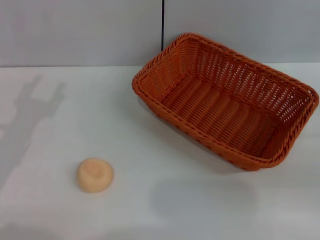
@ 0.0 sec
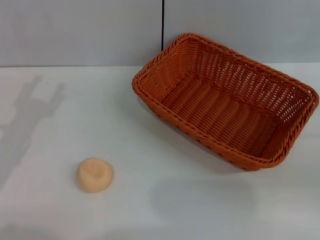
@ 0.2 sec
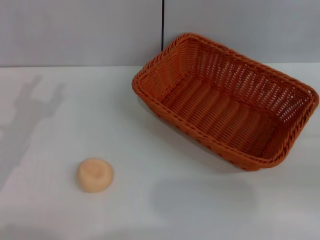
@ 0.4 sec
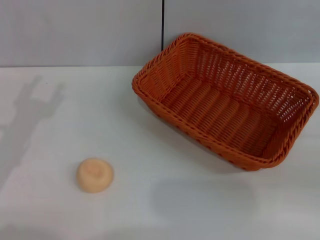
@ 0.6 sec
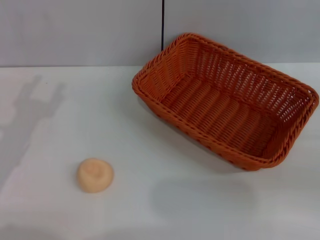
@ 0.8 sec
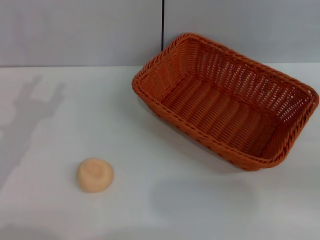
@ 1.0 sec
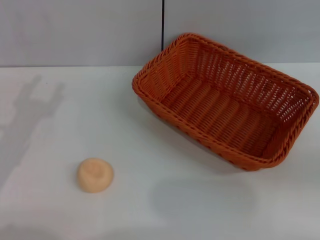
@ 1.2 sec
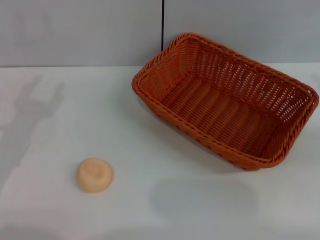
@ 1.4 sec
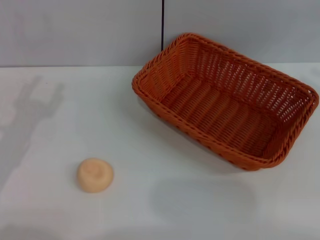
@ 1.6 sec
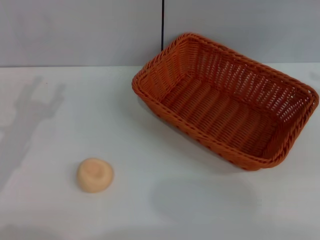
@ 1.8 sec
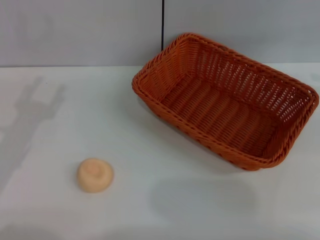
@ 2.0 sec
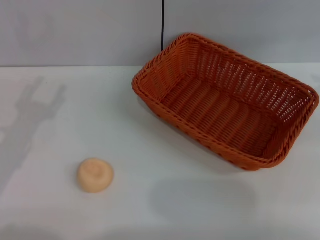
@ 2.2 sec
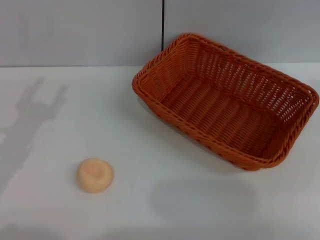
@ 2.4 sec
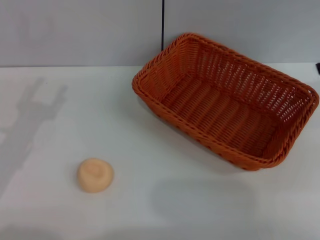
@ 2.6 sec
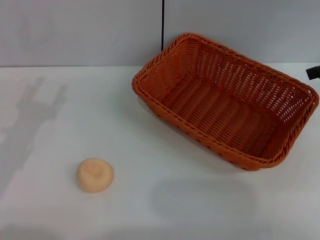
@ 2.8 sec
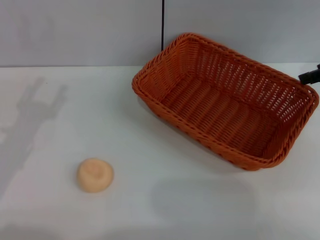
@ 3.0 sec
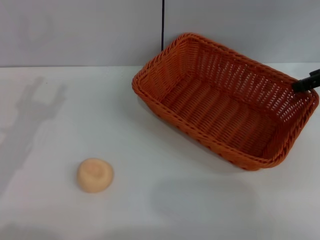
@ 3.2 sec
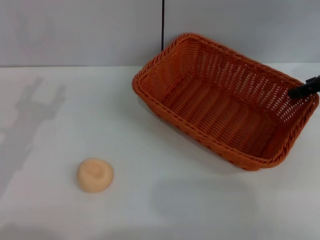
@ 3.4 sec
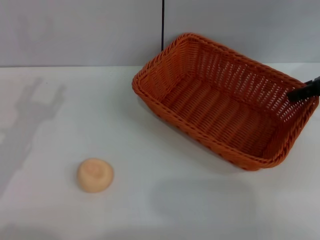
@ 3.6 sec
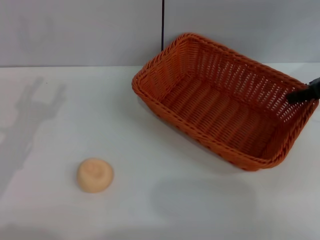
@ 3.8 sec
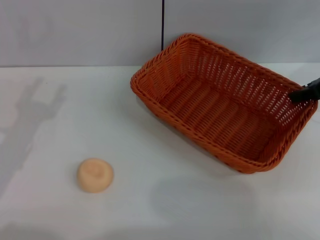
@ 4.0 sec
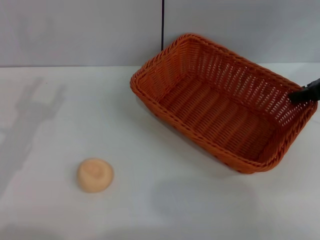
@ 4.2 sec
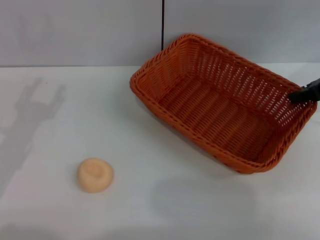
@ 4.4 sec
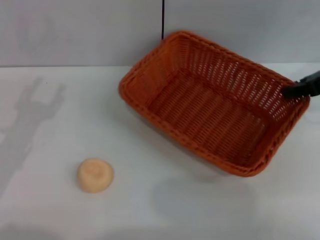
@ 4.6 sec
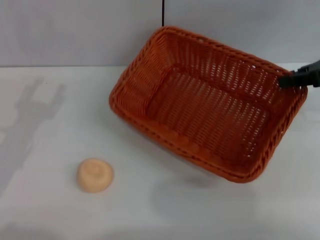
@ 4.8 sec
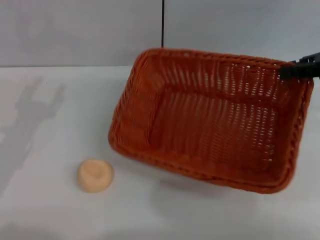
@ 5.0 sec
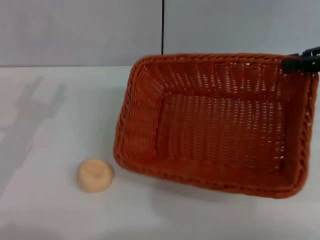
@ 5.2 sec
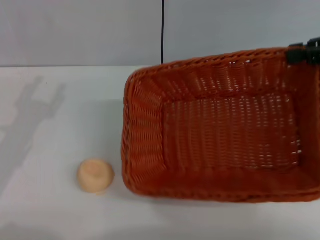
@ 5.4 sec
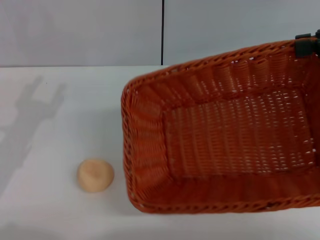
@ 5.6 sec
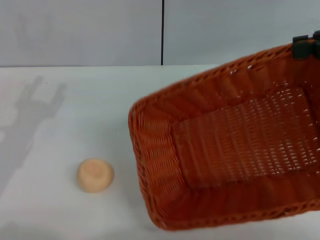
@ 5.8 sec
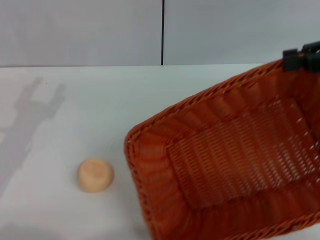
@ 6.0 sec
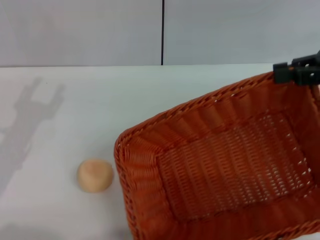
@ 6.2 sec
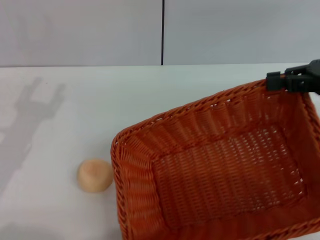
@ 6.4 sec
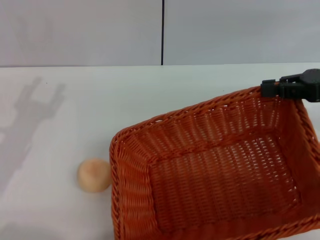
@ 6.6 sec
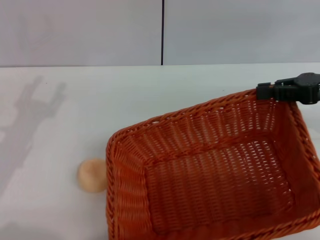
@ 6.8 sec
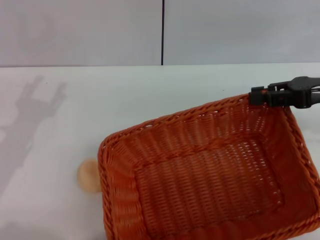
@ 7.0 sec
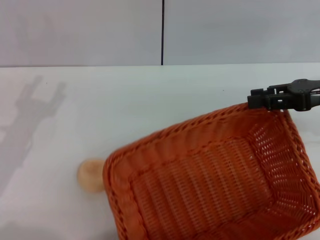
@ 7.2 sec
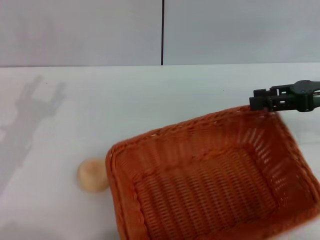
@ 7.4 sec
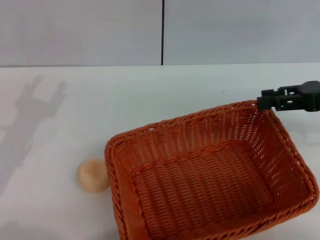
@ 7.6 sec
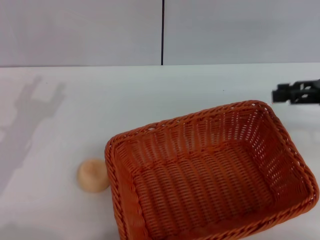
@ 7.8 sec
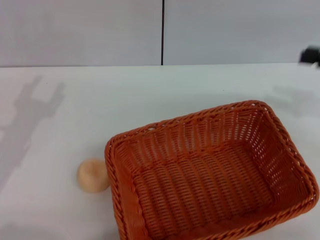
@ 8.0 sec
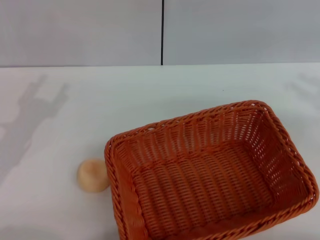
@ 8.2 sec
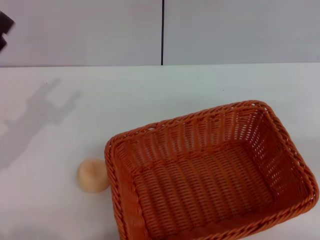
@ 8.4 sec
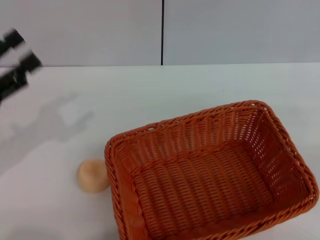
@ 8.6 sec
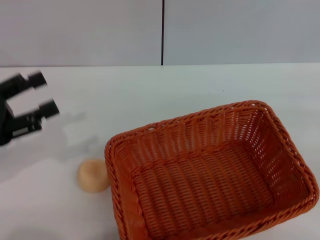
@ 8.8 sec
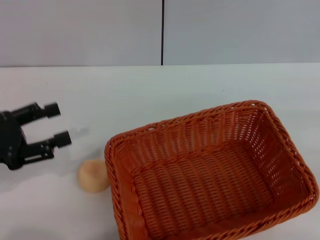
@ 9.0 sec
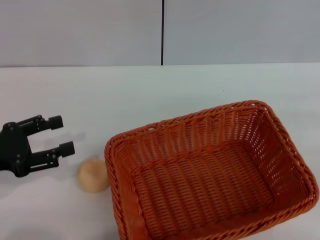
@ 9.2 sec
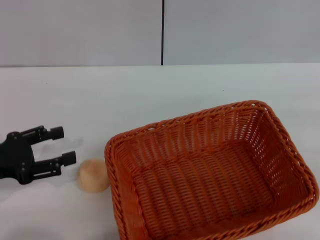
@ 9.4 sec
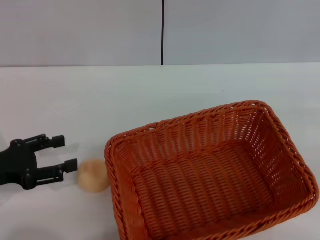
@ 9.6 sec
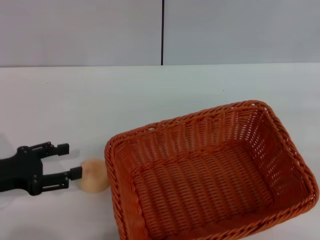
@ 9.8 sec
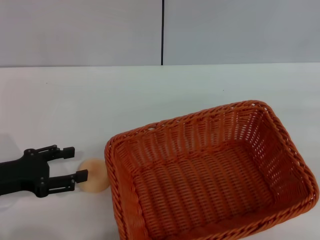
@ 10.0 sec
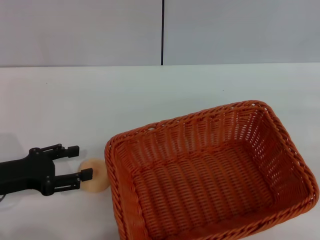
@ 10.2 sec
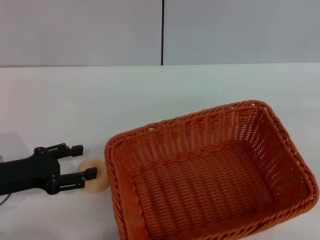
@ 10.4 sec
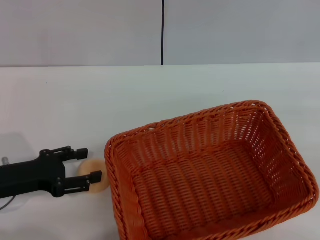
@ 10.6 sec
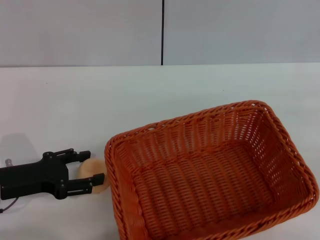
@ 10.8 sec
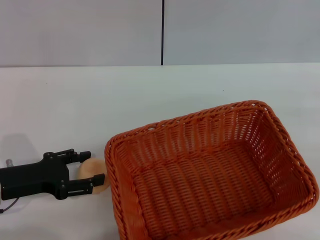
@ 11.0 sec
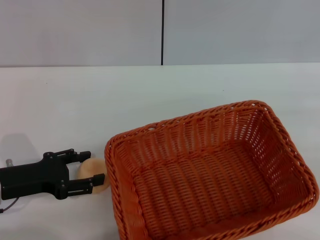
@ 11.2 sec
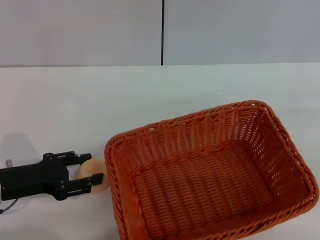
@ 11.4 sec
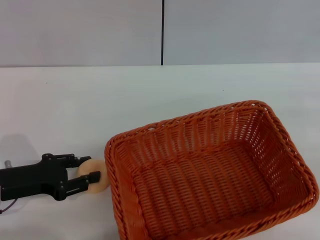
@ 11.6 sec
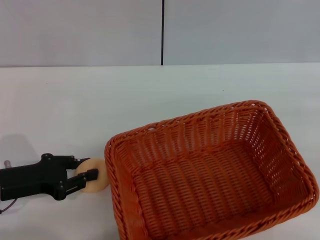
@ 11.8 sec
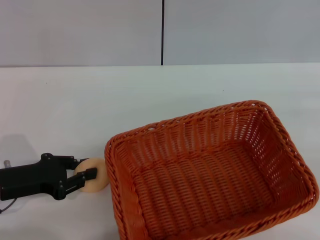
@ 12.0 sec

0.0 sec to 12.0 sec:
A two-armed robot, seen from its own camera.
Step, 0.0 sec to 7.8 sec: Move the basket to the center of view with the right gripper.
3.0 sec to 4.4 sec: The right gripper closes.
4.4 sec to 6.0 sec: The right gripper travels upward by some 5 cm.
6.0 sec to 7.6 sec: The right gripper goes some 5 cm downward, and opens.
7.6 sec to 9.0 sec: The right gripper travels to the right and backward by approximately 15 cm.
9.0 sec to 10.4 sec: The left gripper goes about 5 cm downward.
10.4 sec to 12.0 sec: The left gripper closes up.

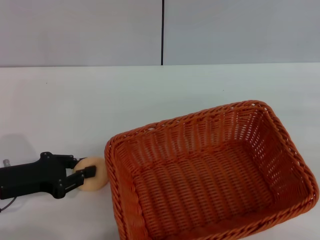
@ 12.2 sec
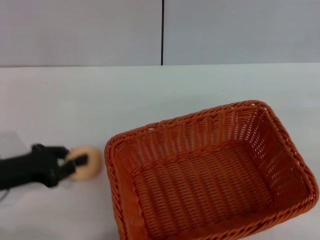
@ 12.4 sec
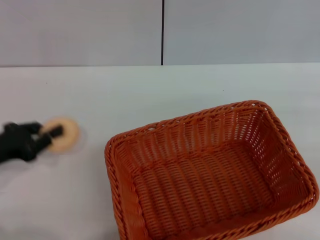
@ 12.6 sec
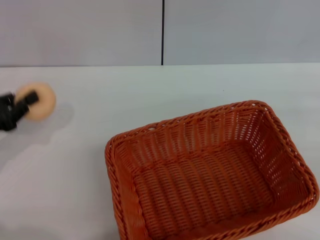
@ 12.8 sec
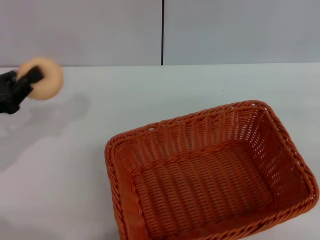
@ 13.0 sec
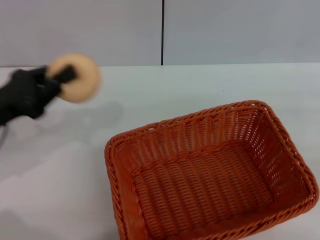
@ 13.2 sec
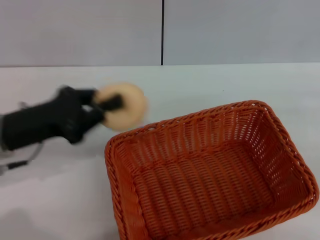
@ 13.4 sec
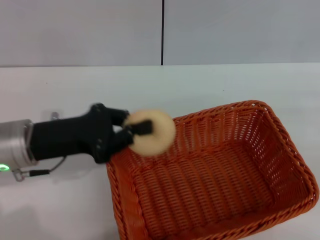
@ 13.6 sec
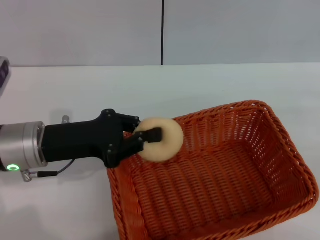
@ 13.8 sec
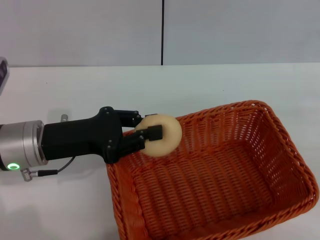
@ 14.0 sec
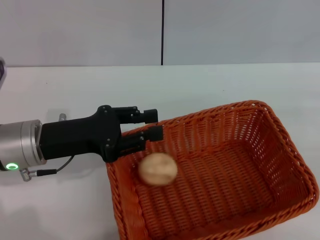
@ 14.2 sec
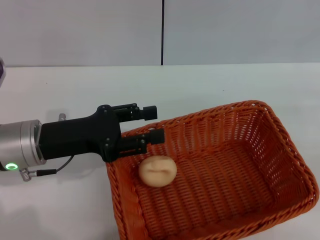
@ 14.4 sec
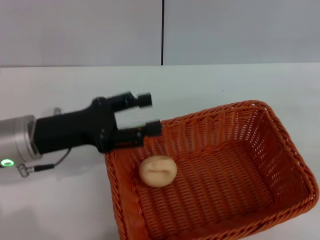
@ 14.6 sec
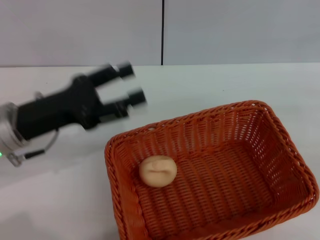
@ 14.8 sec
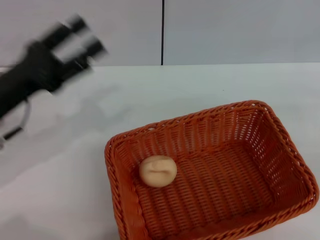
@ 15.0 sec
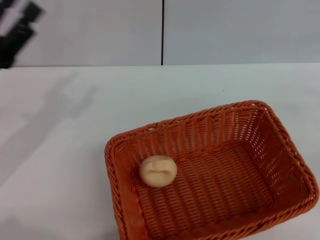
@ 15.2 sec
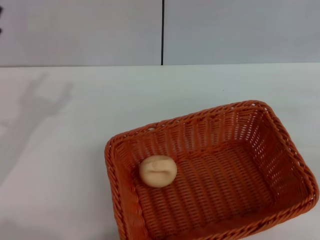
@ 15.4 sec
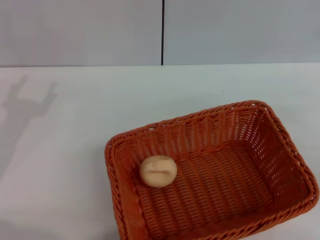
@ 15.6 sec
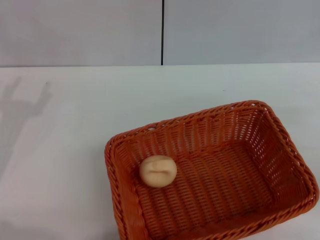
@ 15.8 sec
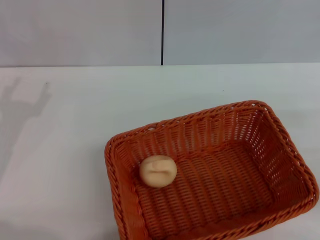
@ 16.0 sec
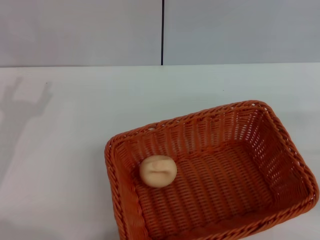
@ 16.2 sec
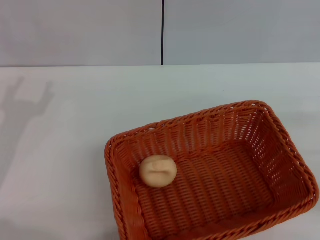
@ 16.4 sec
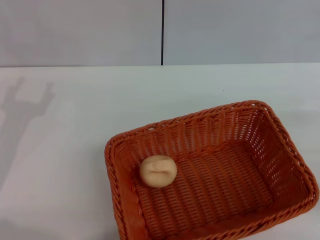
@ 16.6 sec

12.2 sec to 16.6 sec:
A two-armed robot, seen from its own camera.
Step, 13.0 sec to 14.4 sec: Place the egg yolk pastry into the basket with the left gripper.
12.2 sec to 13.6 sec: The left gripper moves to the right and upward, about 10 cm.
13.6 sec to 15.2 sec: The left gripper travels to the left by roughly 5 cm, and opens.
